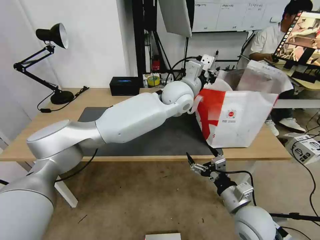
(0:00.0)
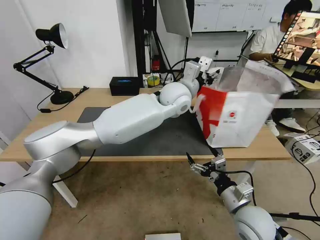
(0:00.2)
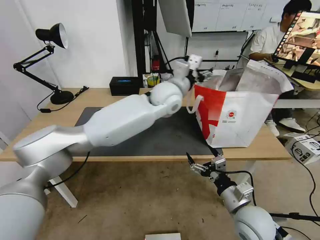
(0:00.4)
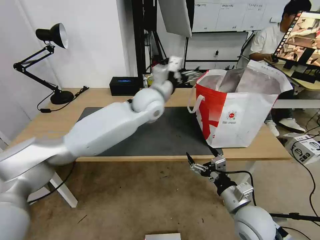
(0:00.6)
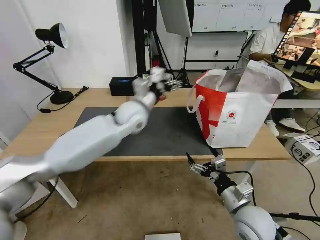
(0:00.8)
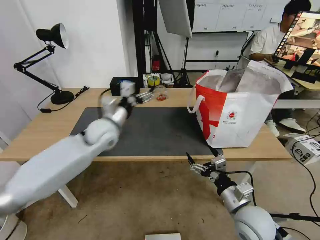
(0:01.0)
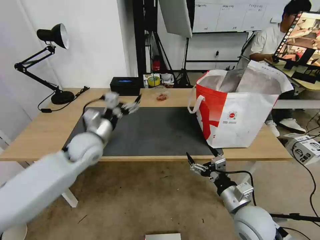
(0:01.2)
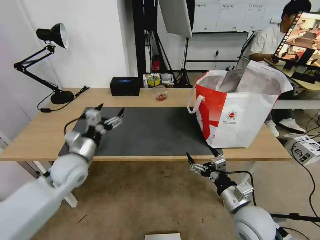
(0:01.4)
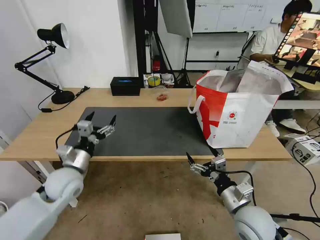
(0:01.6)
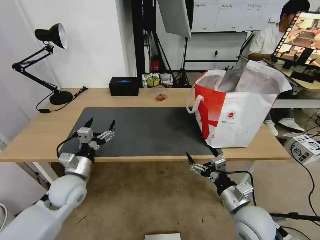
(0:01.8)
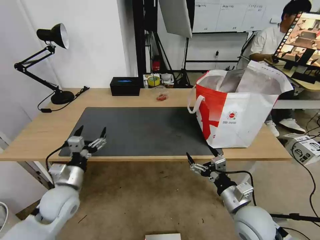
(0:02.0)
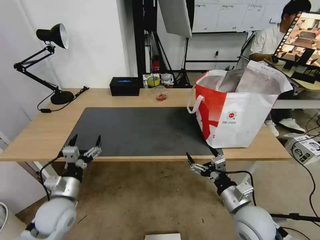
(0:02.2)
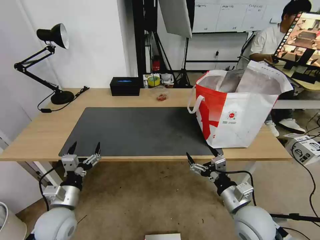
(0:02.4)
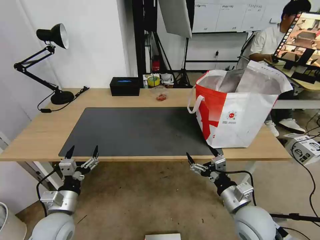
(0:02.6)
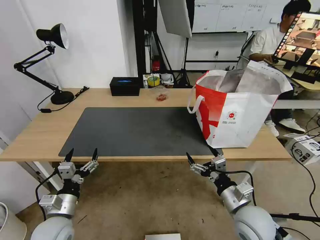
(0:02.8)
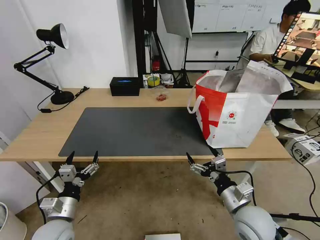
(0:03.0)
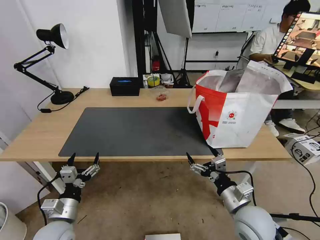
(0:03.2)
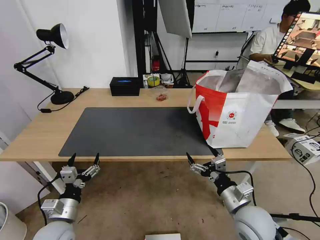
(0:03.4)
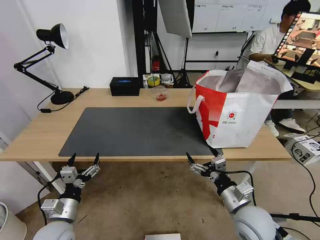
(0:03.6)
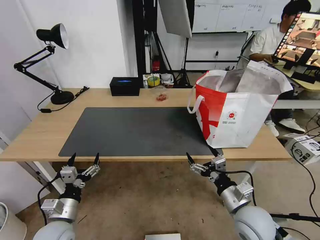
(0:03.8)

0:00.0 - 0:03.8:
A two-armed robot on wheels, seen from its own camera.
Task of the whole recording: Pick up the trash from the table and place it into the takeout bag.
0:00.0 - 0:01.2: The left gripper moves to the left, downward and backward, roughly 35 cm, and opens.
0:01.2 - 0:02.6: The left gripper moves backward and downward, roughly 20 cm.
0:02.6 - 0:03.8: The grippers stay close to where they were, moving slightly.

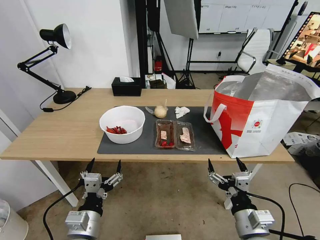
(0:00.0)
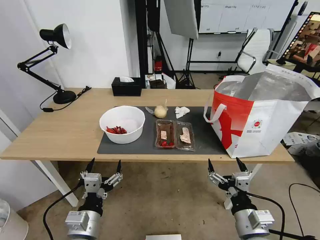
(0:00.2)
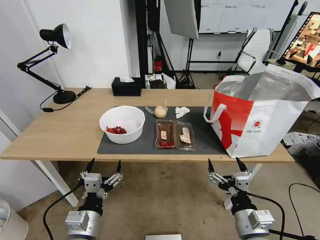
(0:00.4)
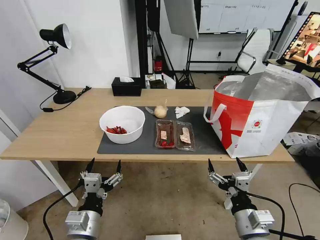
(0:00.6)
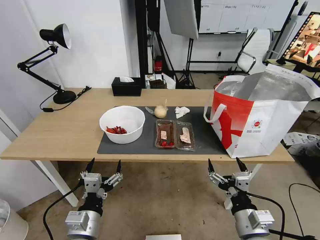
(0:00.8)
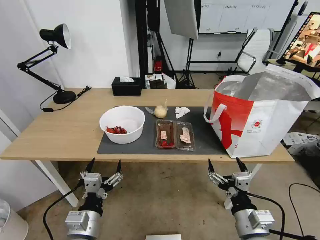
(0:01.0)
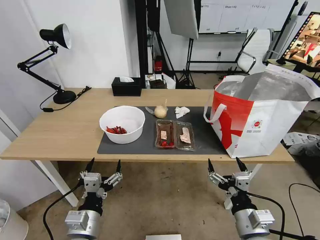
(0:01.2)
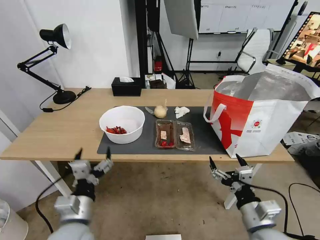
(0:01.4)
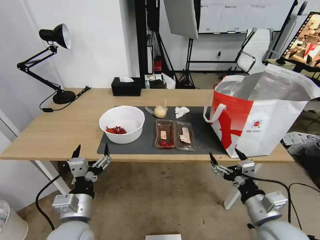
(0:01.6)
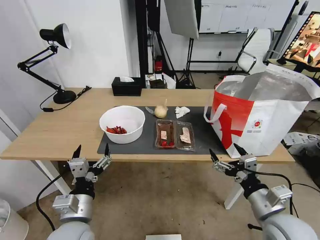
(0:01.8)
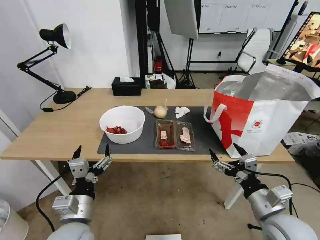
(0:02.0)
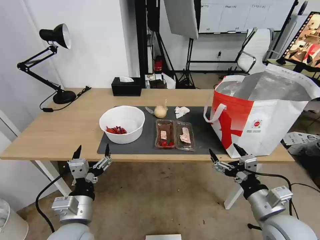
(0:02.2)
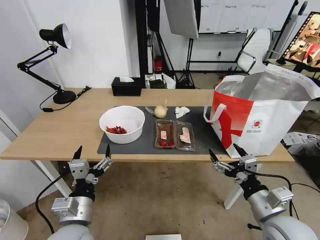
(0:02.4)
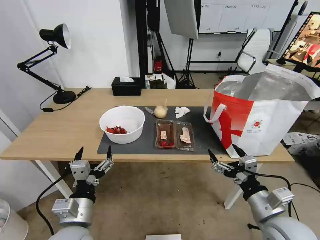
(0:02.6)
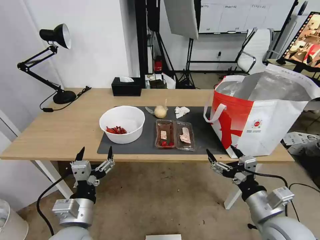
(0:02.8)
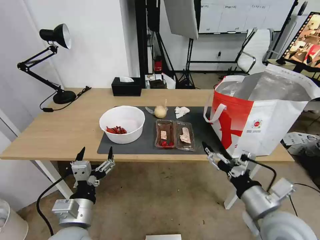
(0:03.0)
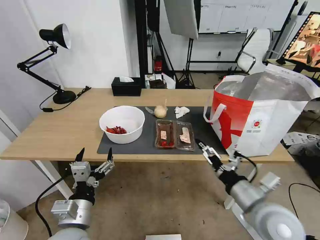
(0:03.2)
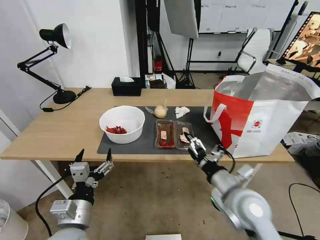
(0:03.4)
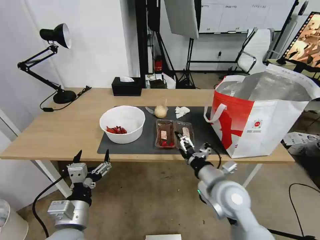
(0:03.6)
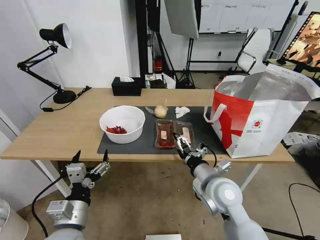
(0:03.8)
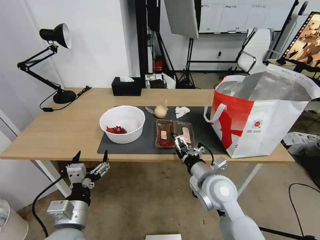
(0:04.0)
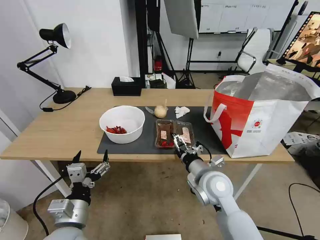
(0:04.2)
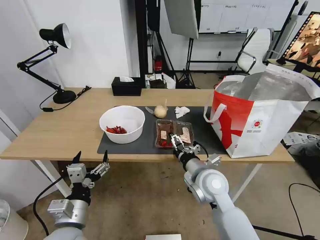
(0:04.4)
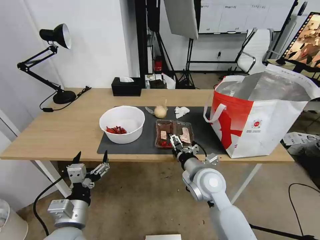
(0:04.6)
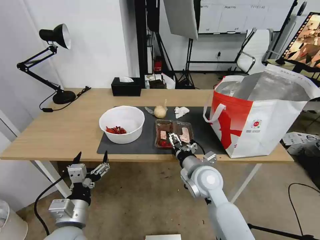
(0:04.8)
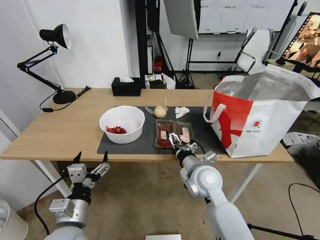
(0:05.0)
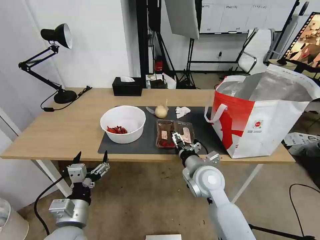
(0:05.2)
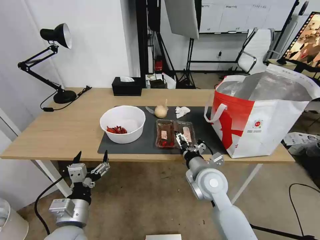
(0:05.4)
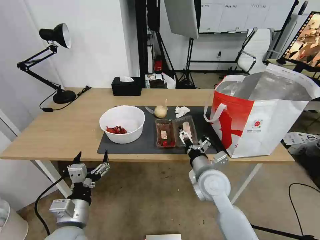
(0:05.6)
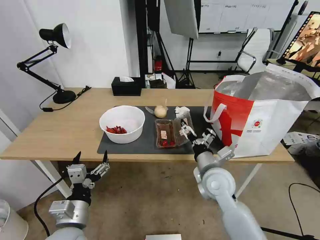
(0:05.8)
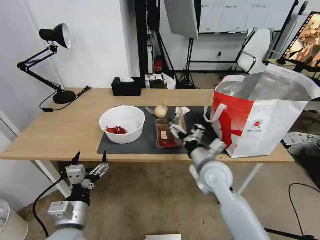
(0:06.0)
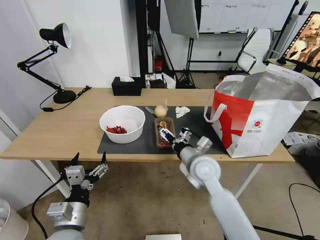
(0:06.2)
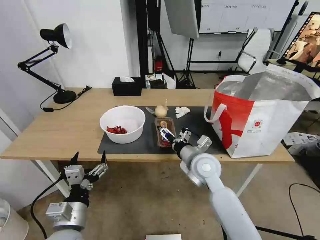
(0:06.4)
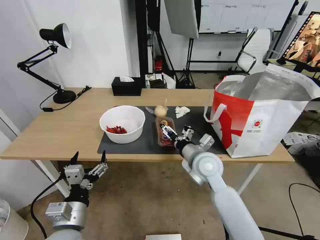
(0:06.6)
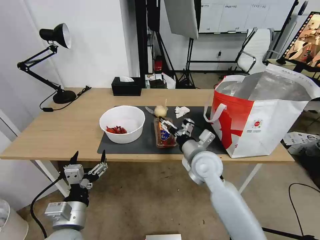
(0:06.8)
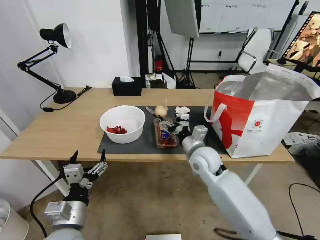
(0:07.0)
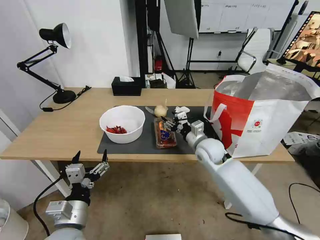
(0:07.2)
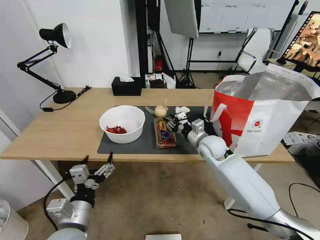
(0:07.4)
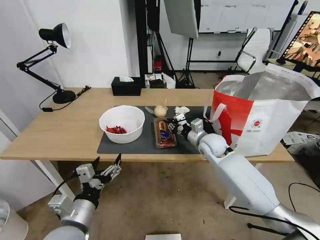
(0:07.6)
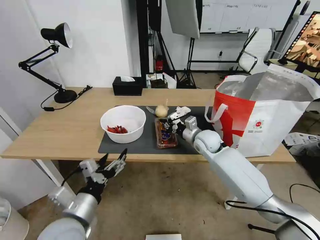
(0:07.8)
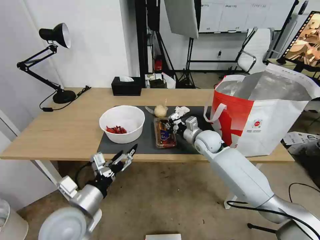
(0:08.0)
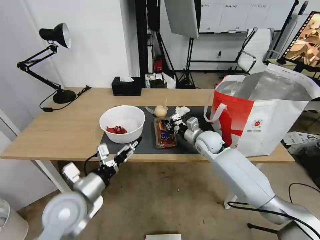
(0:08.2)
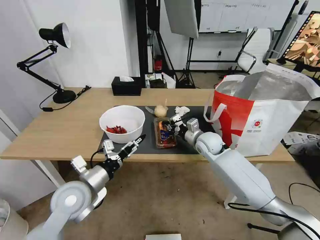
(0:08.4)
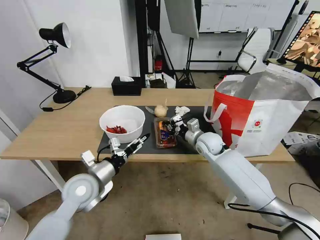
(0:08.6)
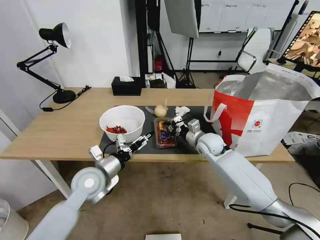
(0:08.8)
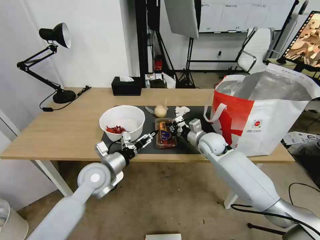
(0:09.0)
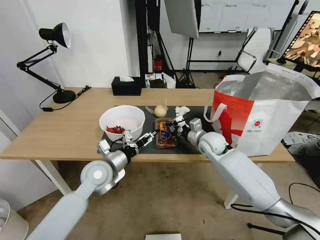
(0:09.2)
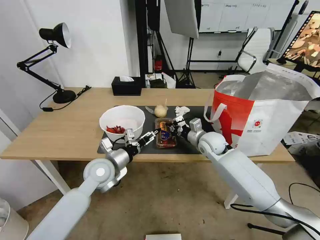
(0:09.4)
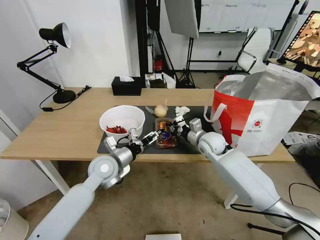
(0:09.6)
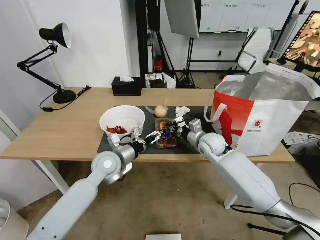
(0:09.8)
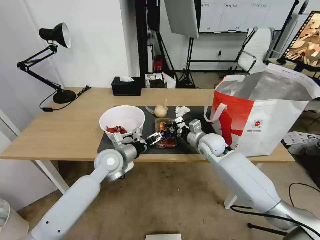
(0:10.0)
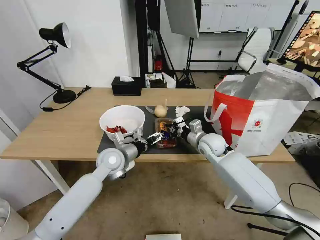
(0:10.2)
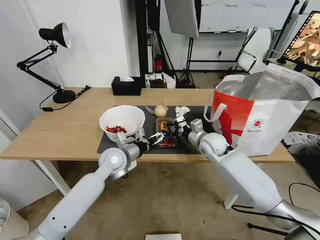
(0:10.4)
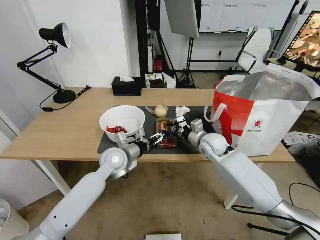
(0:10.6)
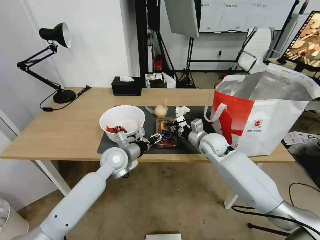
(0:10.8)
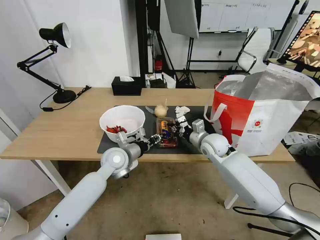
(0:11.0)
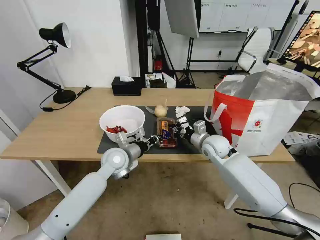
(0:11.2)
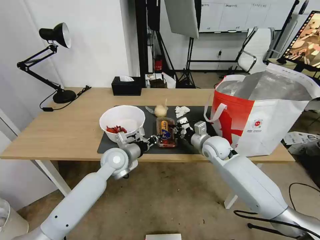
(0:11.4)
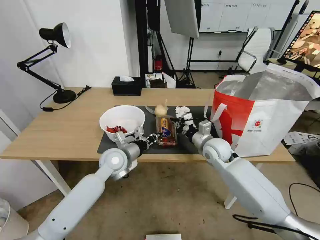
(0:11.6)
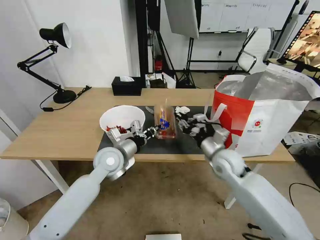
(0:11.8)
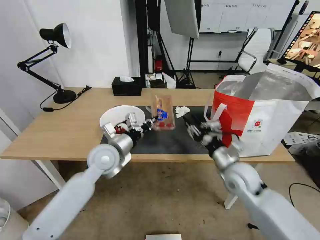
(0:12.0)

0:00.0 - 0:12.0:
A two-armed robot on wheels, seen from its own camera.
Task of the whole recording: Pick up the trash from the table and place it into the takeout bag.
0:01.6 - 0:03.0: The right gripper travels upward by some 5 cm.
0:03.0 - 0:04.4: The right gripper is displaced forward and to the left by some 15 cm.
0:06.0 - 0:07.6: The right gripper travels forward by roughly 15 cm, and closes.
0:07.6 - 0:09.0: The left gripper moves forward, approximately 15 cm.
0:09.0 - 0:10.4: The left gripper is displaced forward by about 10 cm.
0:10.4 - 0:12.0: The left gripper travels upward by some 5 cm, and closes its fingers. Meanwhile the right gripper heads backward, covering approximately 15 cm, and opens up.

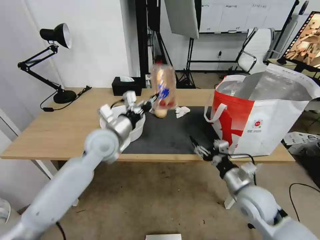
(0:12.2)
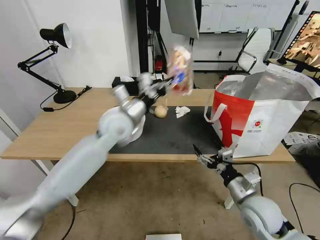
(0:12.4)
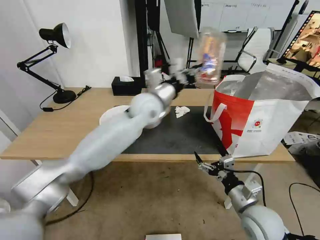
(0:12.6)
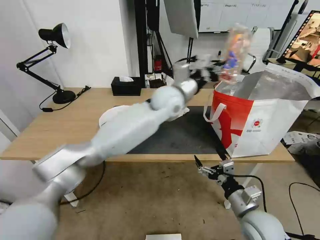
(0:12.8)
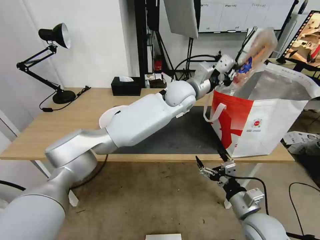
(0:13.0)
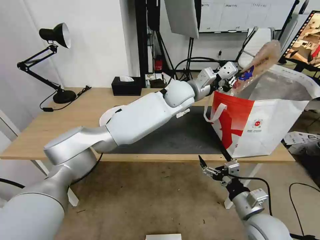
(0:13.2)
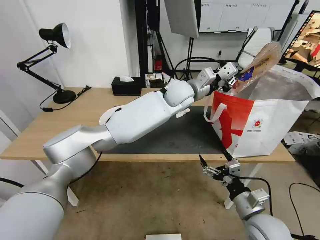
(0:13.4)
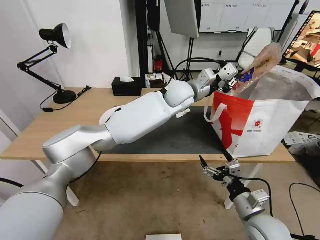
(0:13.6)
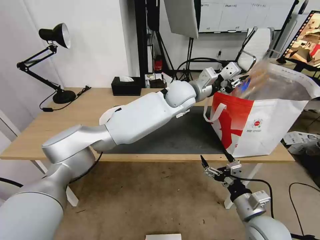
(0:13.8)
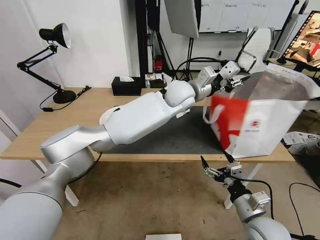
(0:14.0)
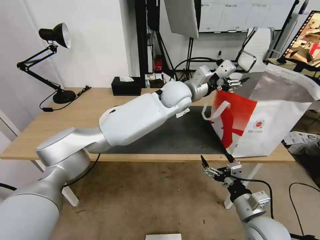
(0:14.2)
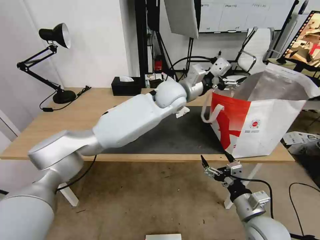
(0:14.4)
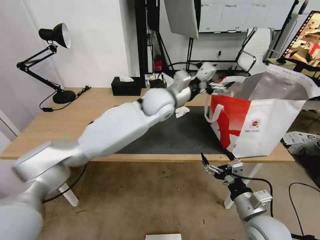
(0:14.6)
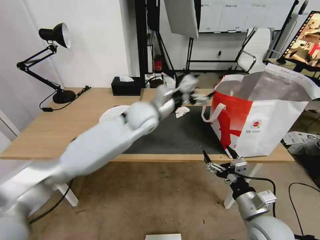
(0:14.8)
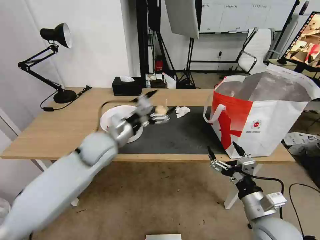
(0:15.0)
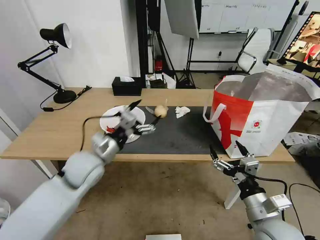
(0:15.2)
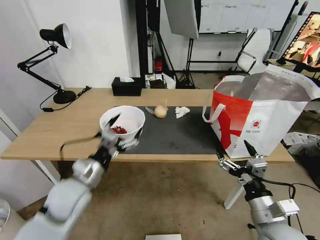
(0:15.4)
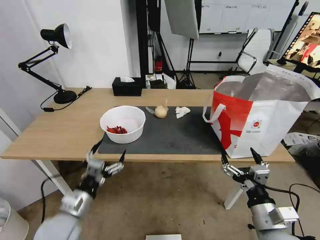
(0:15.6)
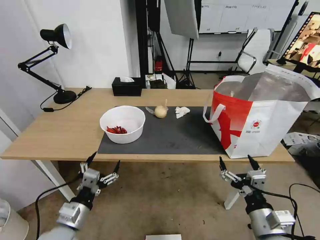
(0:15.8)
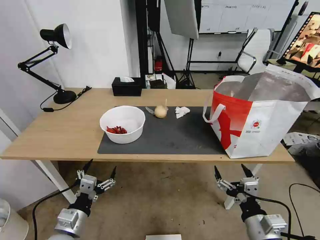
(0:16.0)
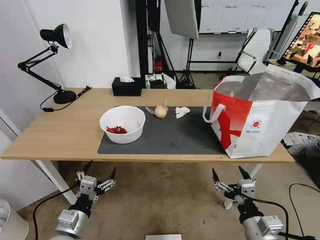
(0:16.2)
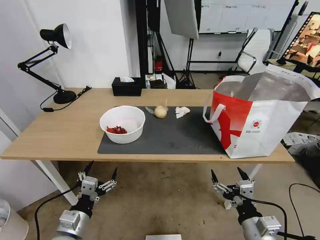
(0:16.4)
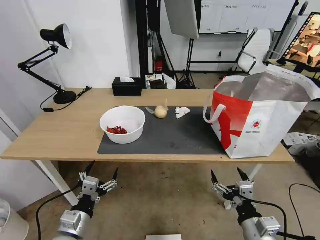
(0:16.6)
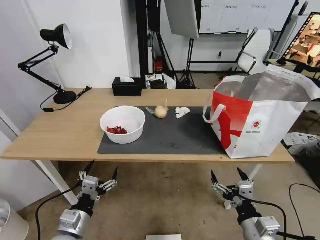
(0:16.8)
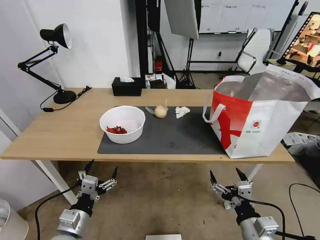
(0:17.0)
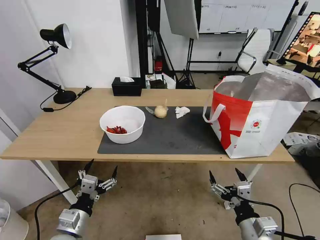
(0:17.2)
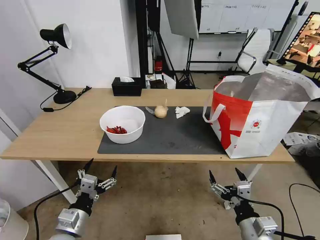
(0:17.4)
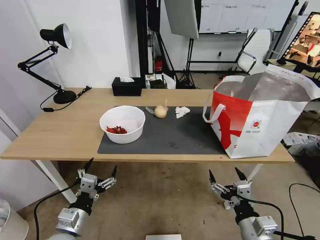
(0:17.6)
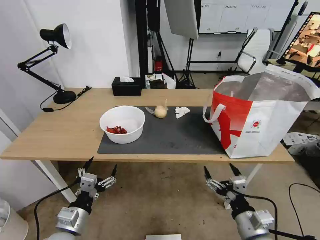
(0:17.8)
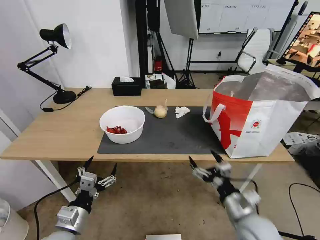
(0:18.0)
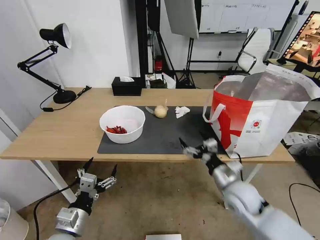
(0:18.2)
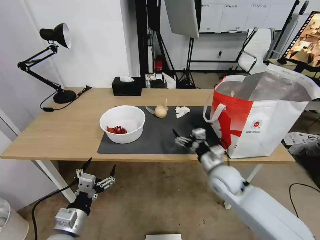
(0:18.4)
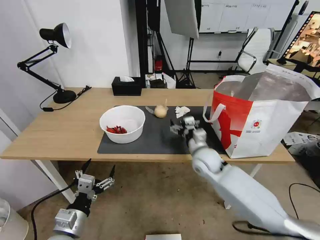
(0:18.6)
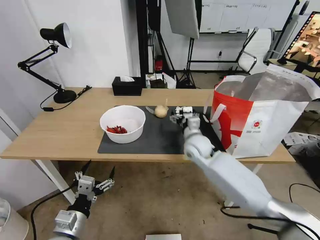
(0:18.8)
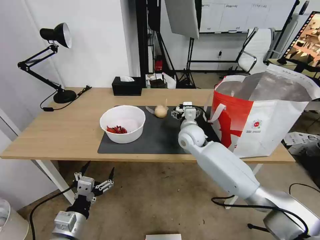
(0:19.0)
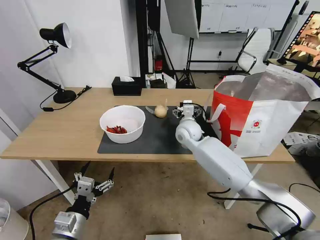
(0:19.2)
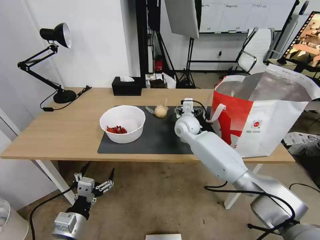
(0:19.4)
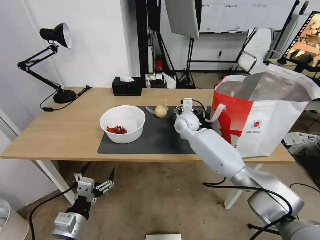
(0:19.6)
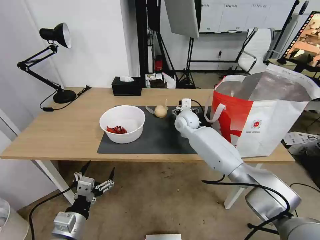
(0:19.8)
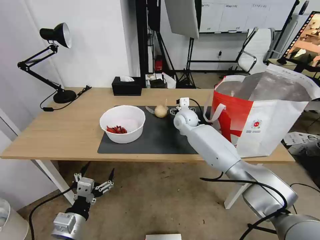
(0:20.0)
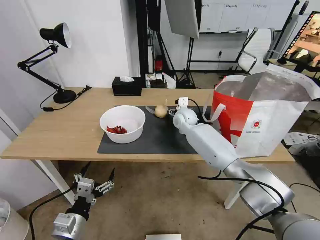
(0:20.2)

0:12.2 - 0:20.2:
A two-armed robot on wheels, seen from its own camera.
Task of the whole recording: Pick up the trash from the table and place it into the takeout bag.
0:12.2 - 0:13.8: The right gripper shifts about 10 cm backward; the left gripper travels to the right and forward by roughly 25 cm.
0:13.8 - 0:15.4: The right gripper changes place by about 5 cm. The left gripper moves to the left, backward and downward, roughly 40 cm, and opens its fingers.
0:15.4 - 0:17.0: The left gripper is displaced backward and downward by approximately 15 cm, while the right gripper ends up some 5 cm from where it was.
0:17.0 - 0:18.6: The right gripper moves forward, approximately 30 cm.
0:18.6 - 0:20.2: The right gripper moves forward, some 20 cm.
